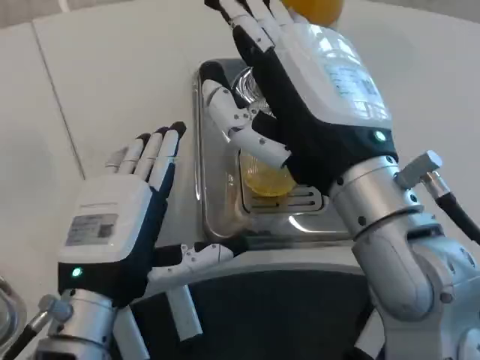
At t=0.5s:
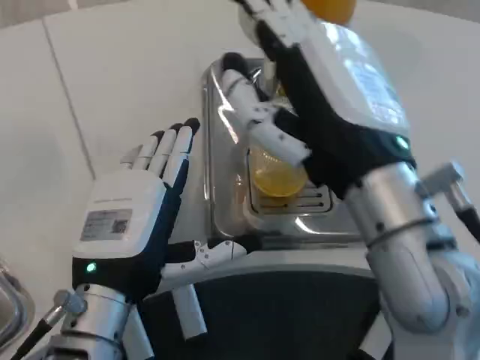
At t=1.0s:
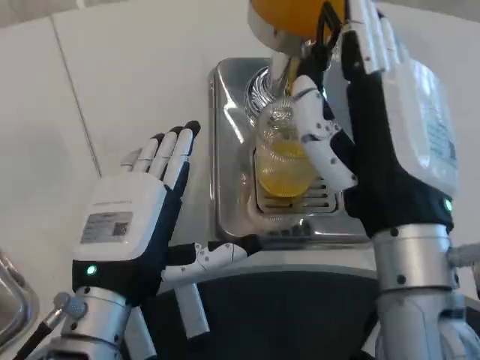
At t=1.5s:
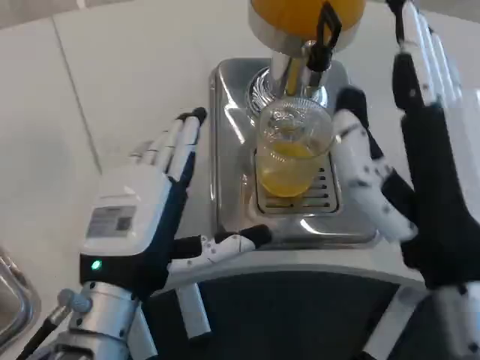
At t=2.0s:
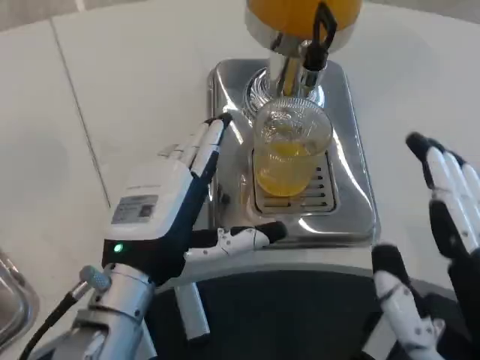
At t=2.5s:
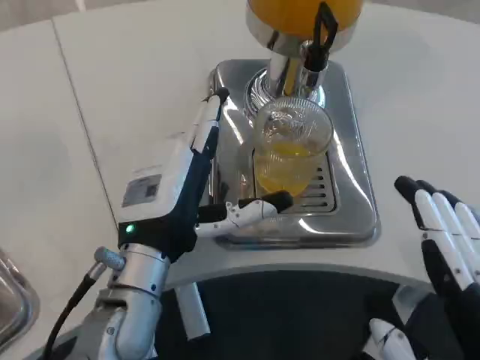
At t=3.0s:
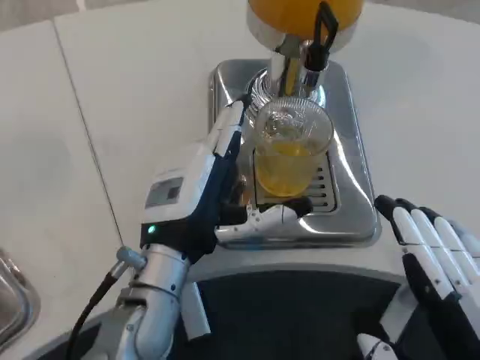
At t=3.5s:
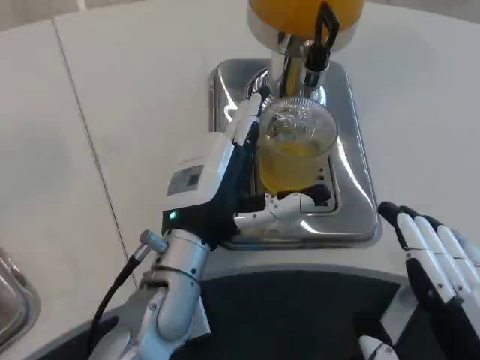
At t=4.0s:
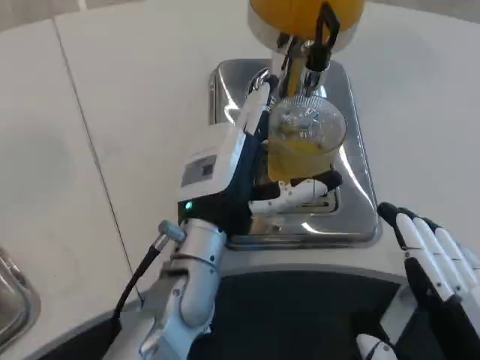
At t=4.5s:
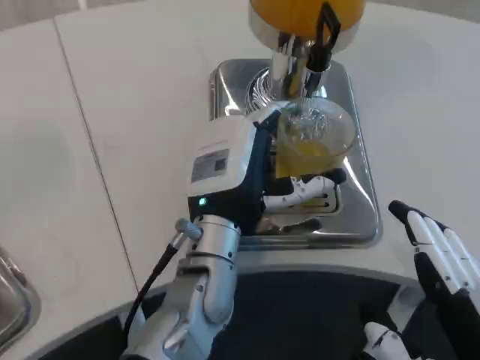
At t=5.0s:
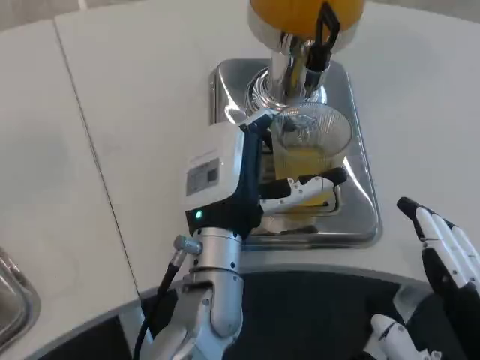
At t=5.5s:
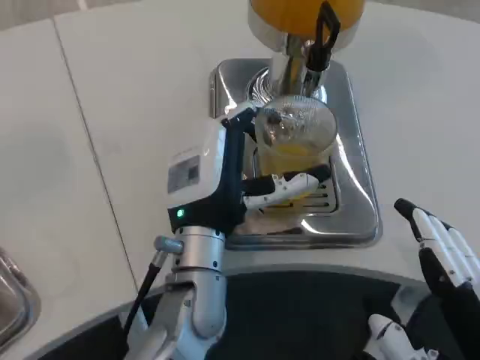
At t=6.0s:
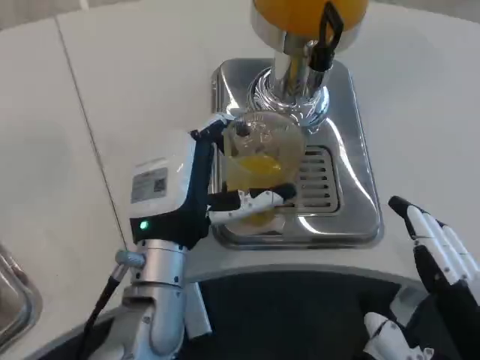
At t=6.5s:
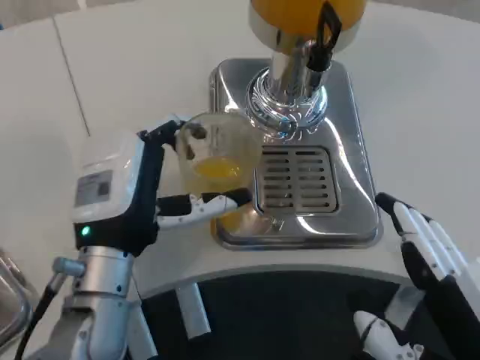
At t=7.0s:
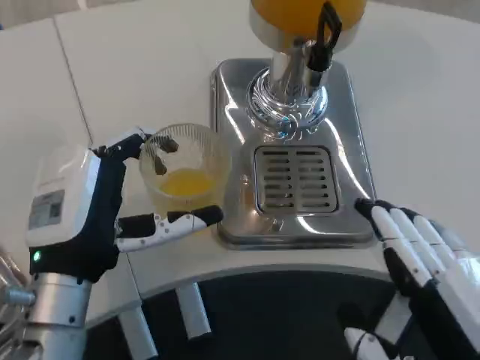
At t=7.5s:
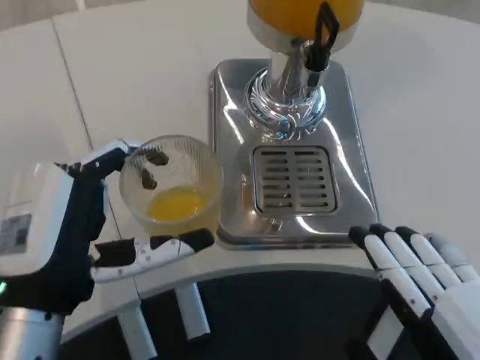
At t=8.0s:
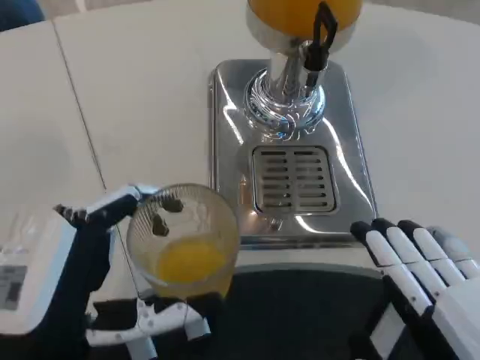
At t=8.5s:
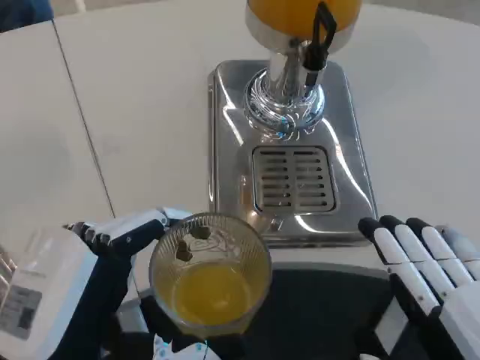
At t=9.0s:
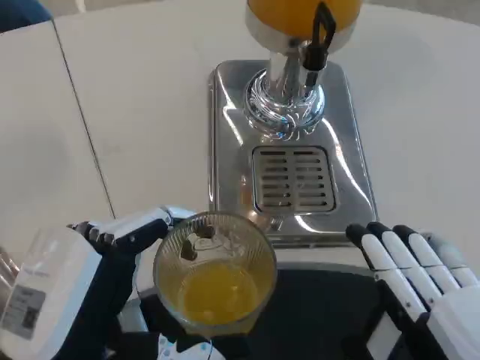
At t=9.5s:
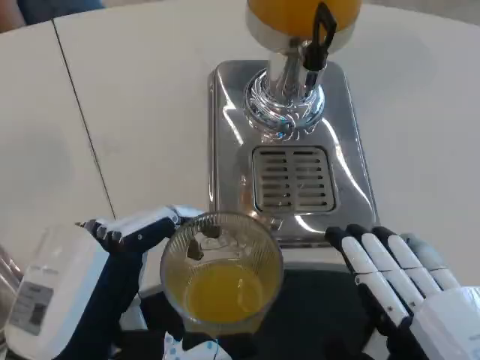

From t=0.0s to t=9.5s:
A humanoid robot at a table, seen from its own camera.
Task of the whole recording: Grasp the cup under the faucet to collect the drink, then remove the cup.
From t=0.0s to t=2.0s: The right hand travels backward, downward and to the right by roughly 20 cm.
From t=2.0s to t=4.0s: The left hand shifts approximately 10 cm to the right and forward.
From t=4.0s to t=5.5s: The hands make only small movements.
From t=5.5s to t=7.5s: The left hand moves to the left and backward, roughly 15 cm.
From t=7.5s to t=9.5s: The left hand goes about 5 cm backward.
